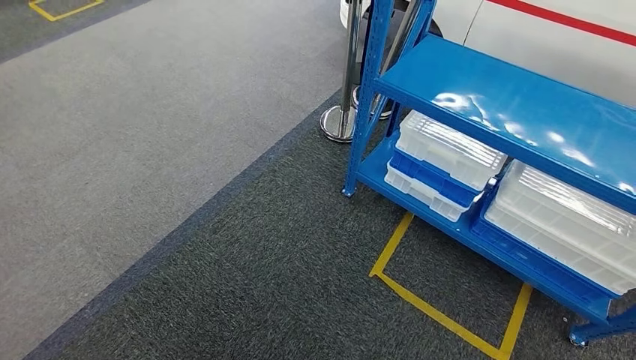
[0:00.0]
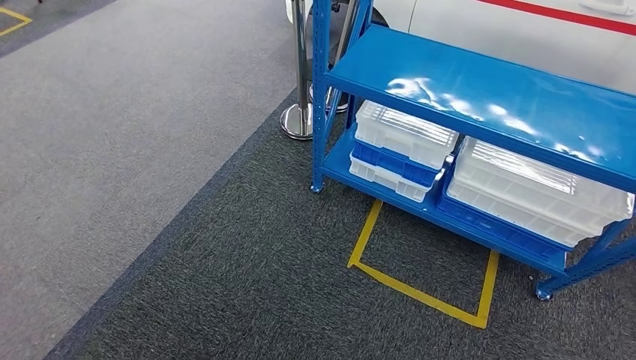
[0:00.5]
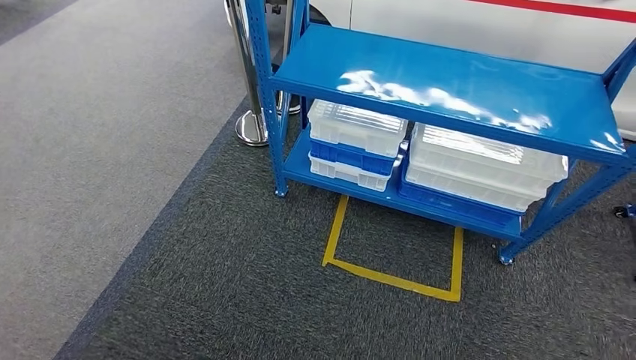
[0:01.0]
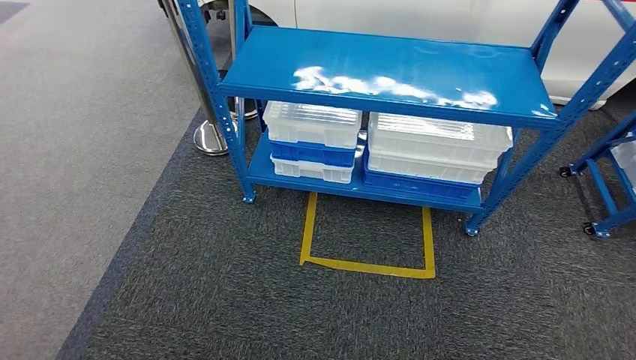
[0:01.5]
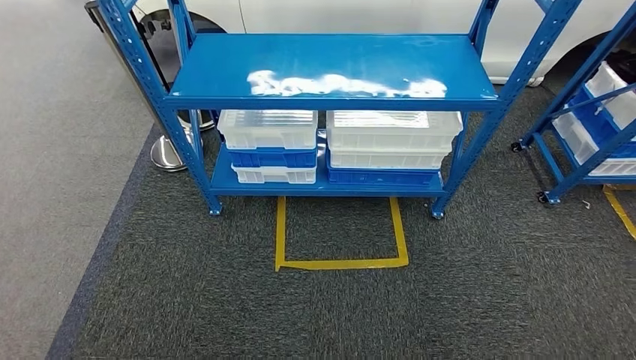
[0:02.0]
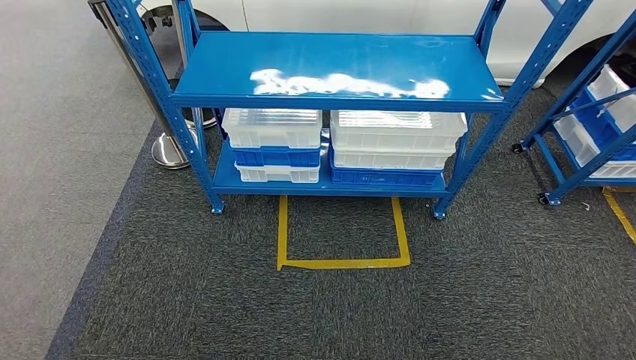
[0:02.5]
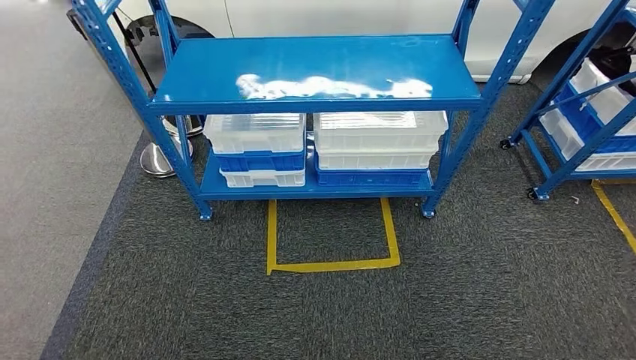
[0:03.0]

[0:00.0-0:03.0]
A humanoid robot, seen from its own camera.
Step, 0:00.0 to 0:03.0: Move to the initial position of the shelf.
